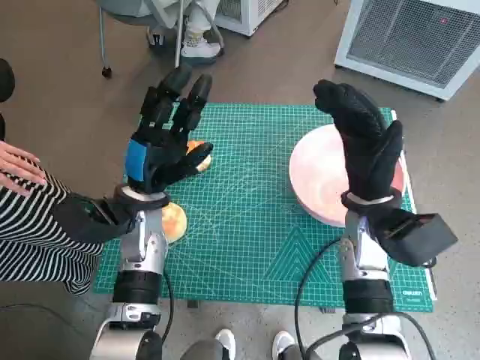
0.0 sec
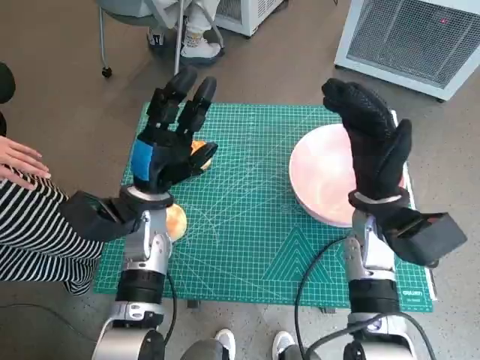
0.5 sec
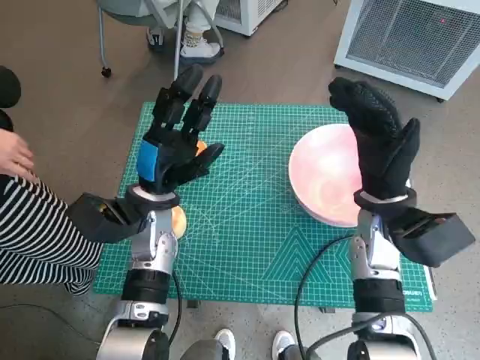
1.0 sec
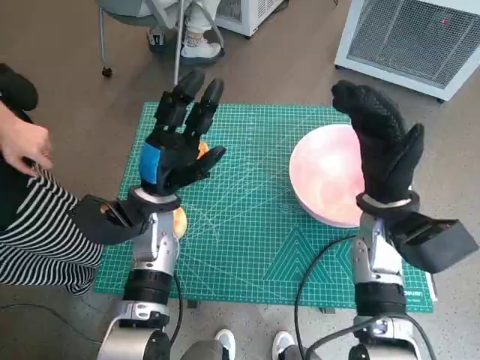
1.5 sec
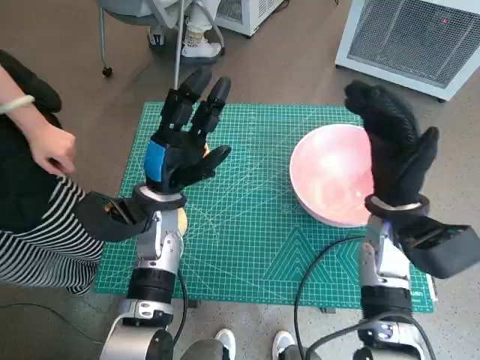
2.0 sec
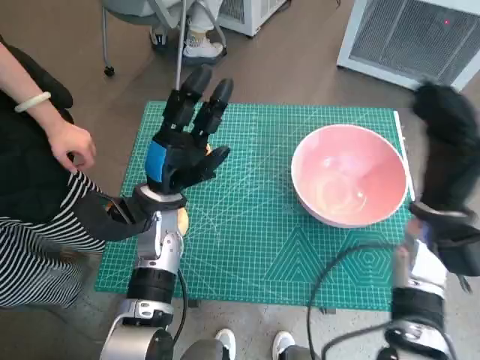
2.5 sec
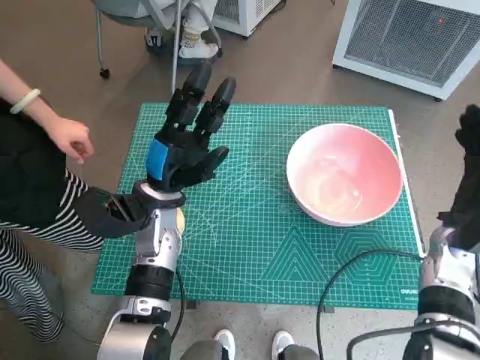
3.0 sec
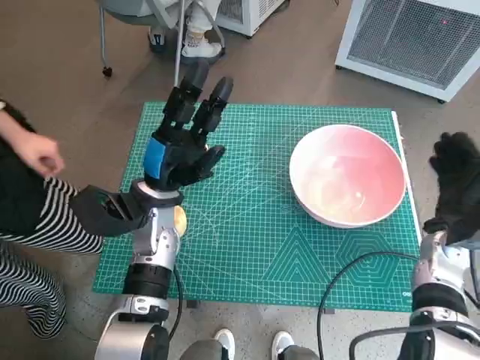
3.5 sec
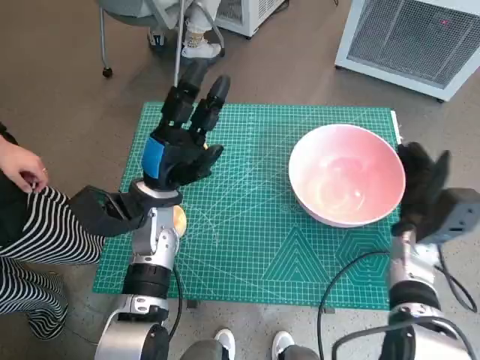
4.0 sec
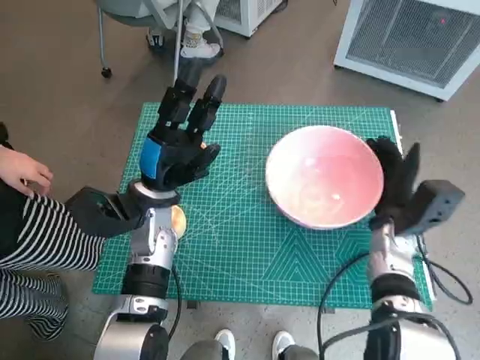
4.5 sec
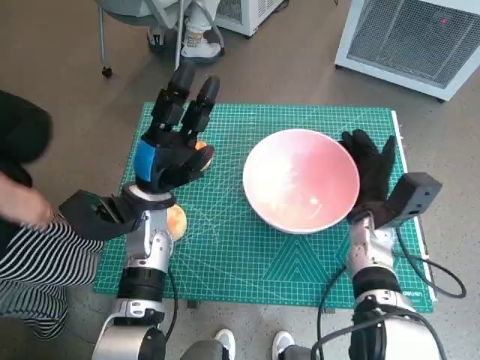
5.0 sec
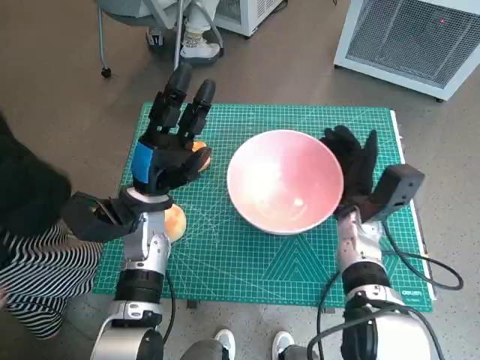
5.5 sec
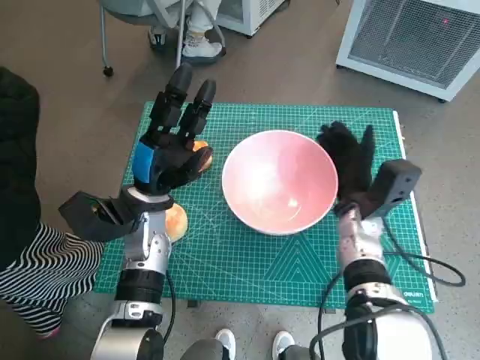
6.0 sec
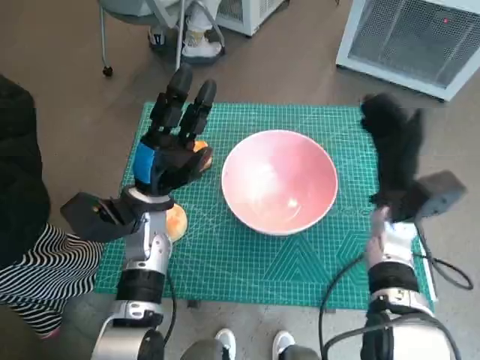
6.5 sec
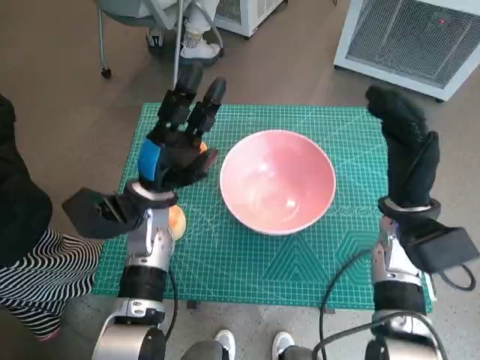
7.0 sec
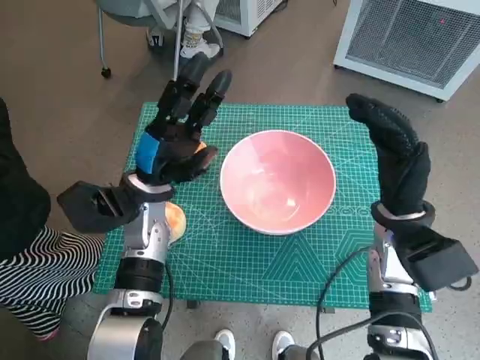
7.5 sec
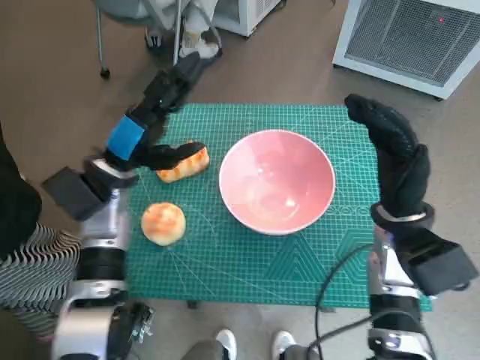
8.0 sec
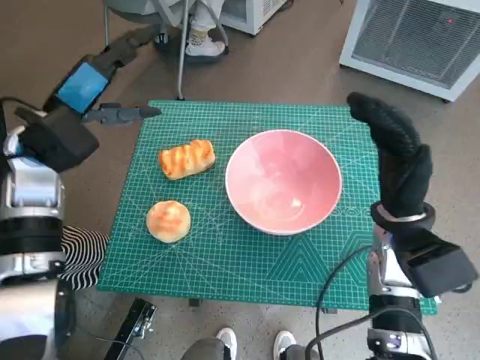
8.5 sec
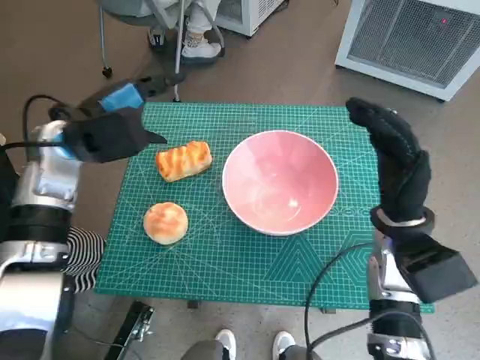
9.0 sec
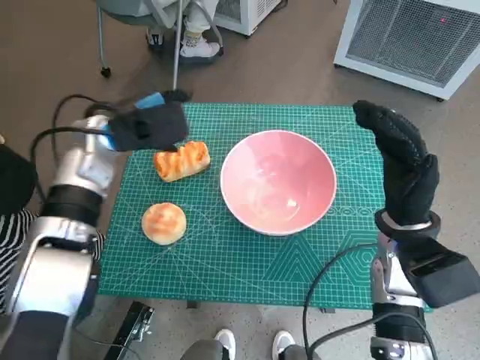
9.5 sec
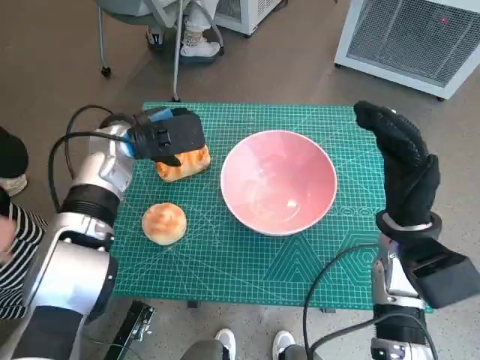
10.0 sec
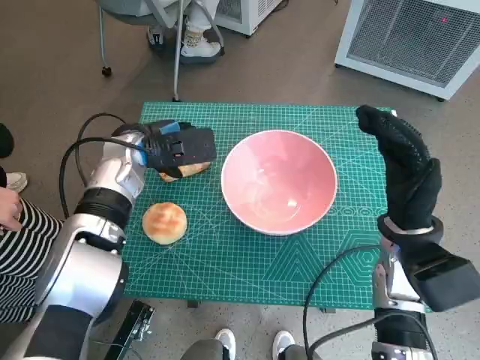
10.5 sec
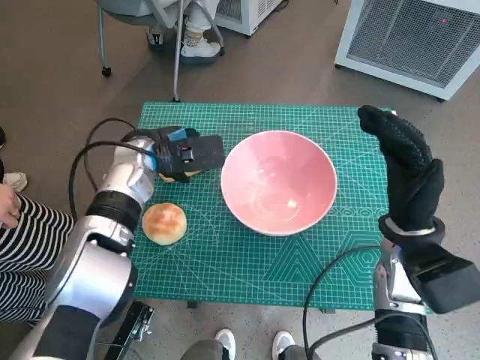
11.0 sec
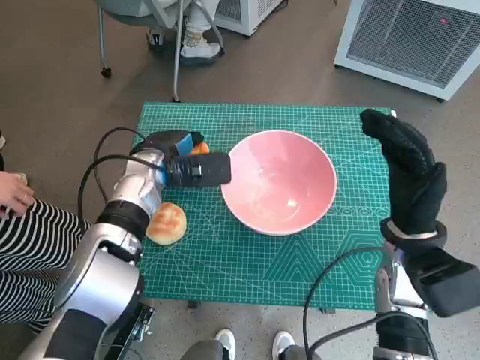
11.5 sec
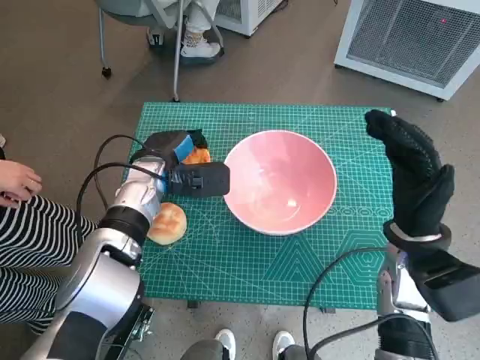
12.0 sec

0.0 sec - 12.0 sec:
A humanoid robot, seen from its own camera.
Task of the whole recording: Push the bowl into the center of the table and put the bread into the bowl.
Step, 0.0 sec - 6.0 sec: Move the pink bowl to the center of table with right hand.
Step, 6.5 sec - 11.5 sec: Grasp the long bread with left hand.
2.0 sec - 4.0 sec: The right hand travels downward and to the right by approximately 10 cm.
4.0 sec - 6.0 sec: The right hand is displaced to the left by some 10 cm.
6.0 sec - 8.0 sec: The left hand ends up about 5 cm from where it was. The right hand travels upward by approximately 5 cm.
8.0 sec - 10.0 sec: The left hand shifts roughly 5 cm forward, and moves some 10 cm upward and comes back.
10.0 sec - 12.0 sec: The left hand moves downward, roughly 5 cm.

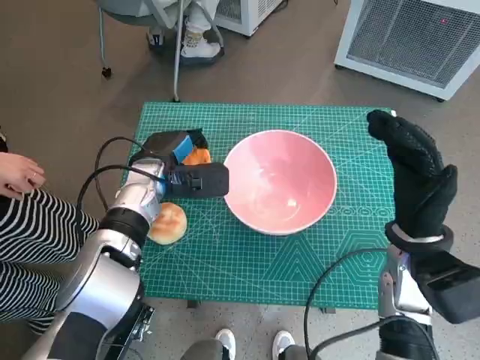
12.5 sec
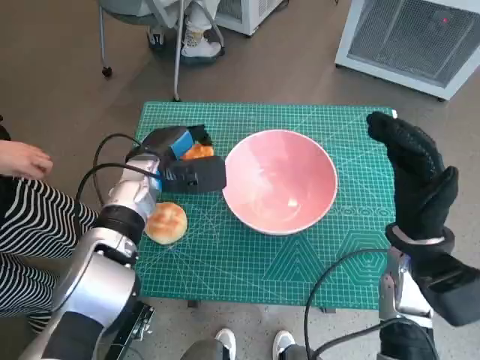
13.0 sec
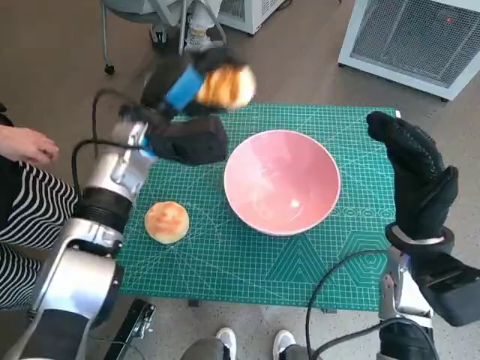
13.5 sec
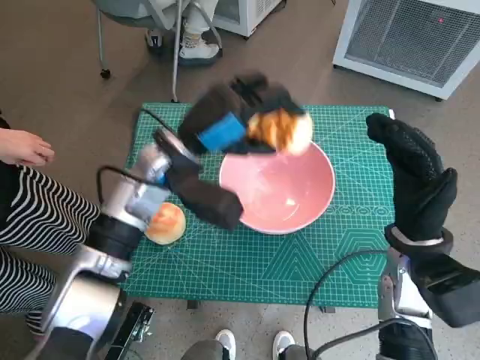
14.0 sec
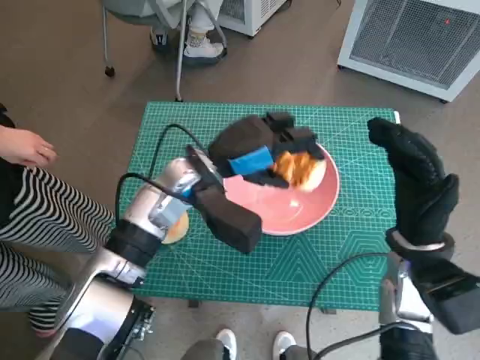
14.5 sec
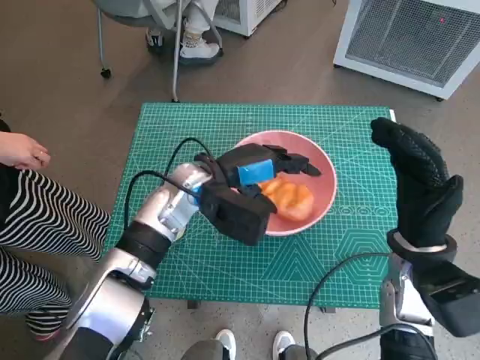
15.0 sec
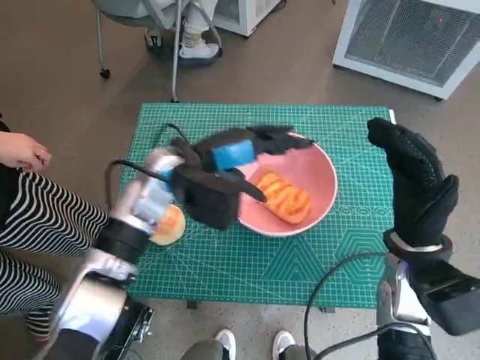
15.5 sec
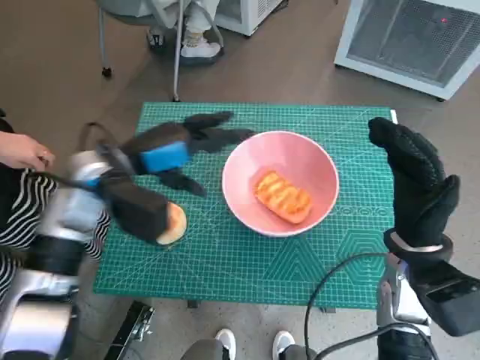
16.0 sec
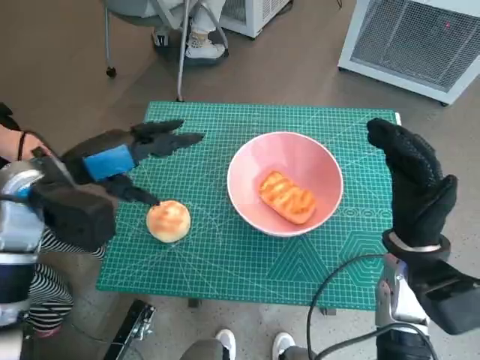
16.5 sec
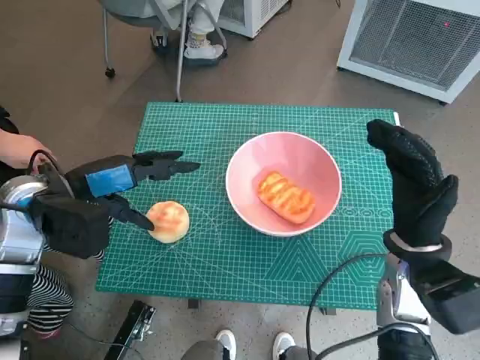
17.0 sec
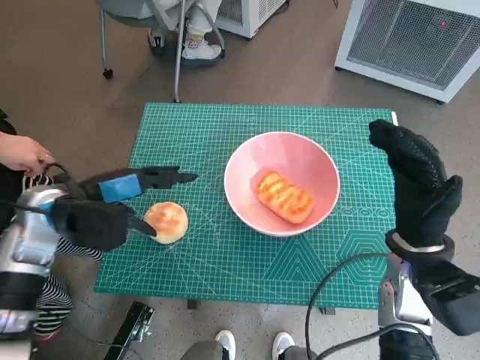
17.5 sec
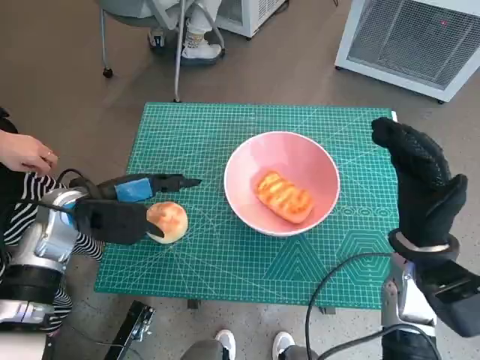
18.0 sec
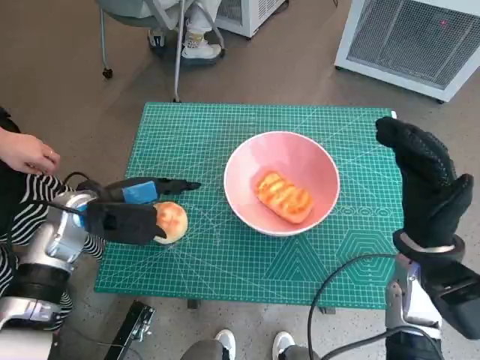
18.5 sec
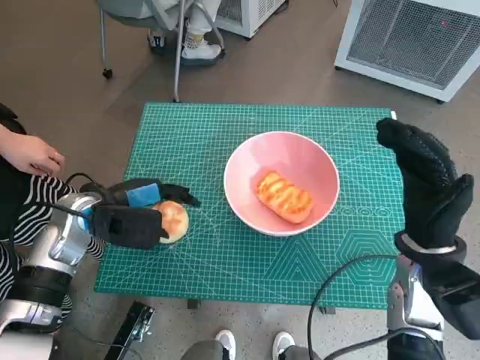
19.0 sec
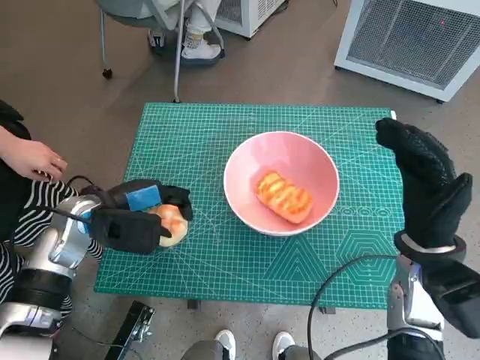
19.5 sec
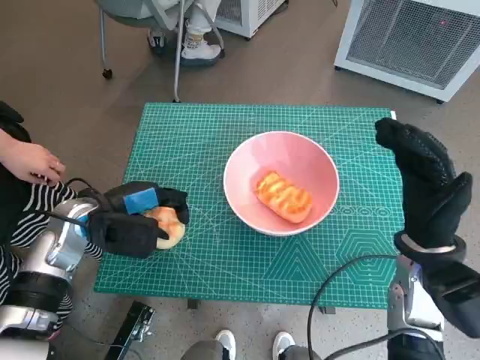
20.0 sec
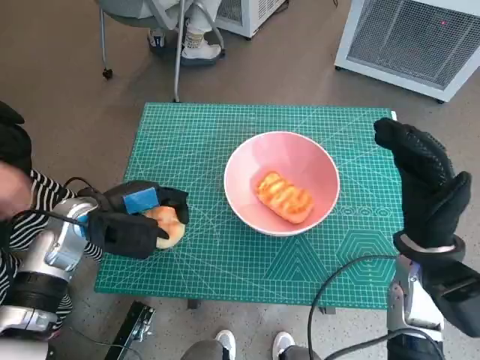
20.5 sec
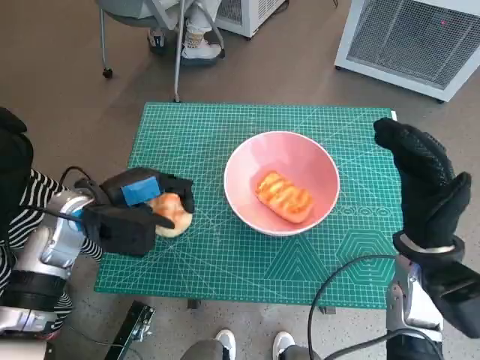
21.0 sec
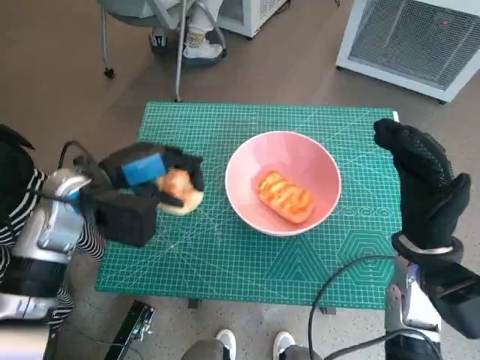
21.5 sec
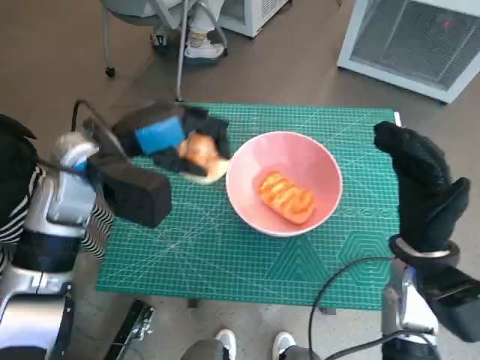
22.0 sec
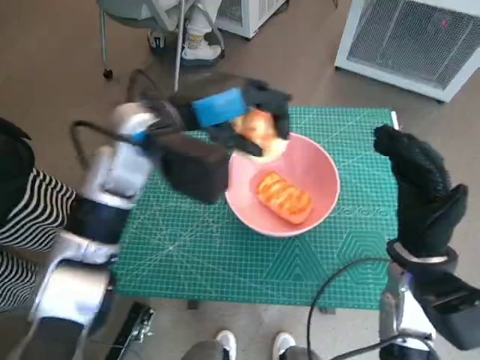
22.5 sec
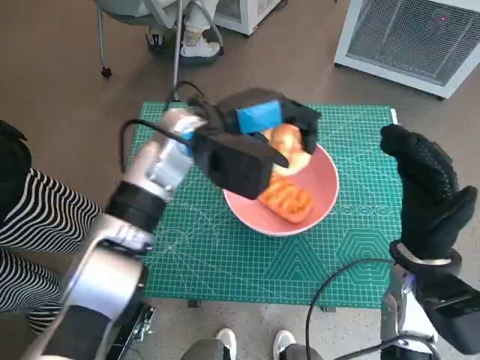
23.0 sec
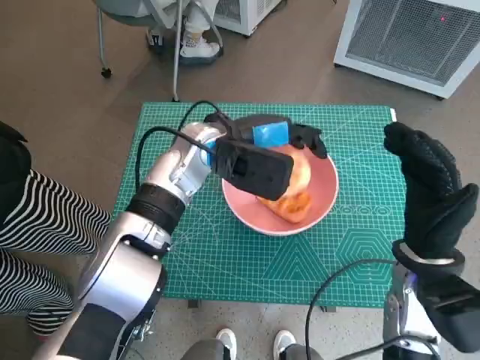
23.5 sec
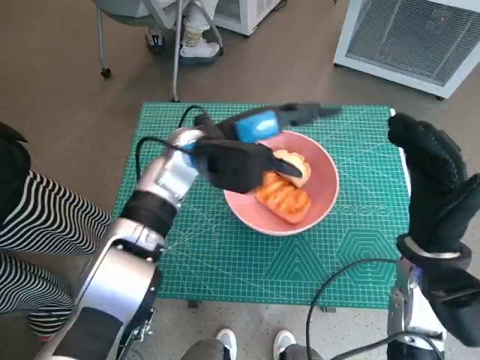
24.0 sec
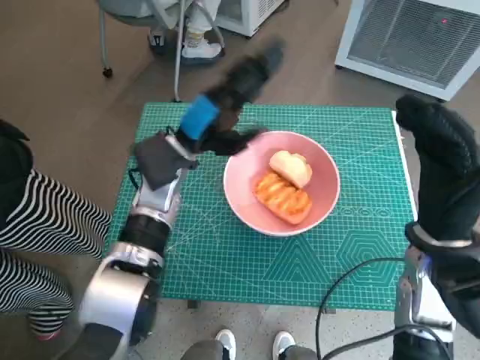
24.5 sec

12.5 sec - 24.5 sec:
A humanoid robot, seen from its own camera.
Task of the whole recording: Push the bowl into the center of the table and put the bread into the bowl.
Step, 12.5 sec - 15.5 sec: Place the long bread in pink bowl with left hand.
Step, 16.0 sec - 19.0 sec: Grasp the round bread with left hand.
Step, 19.5 sec - 24.0 sec: Place the round bread in pink bowl with left hand.
12.5 sec - 14.5 sec: The left hand is displaced to the right and upward by some 10 cm.
14.5 sec - 16.5 sec: The left hand heads to the left, covering approximately 15 cm.
16.5 sec - 18.5 sec: The left hand travels downward by some 10 cm.
18.5 sec - 20.5 sec: The hands stay close to where they were, moving slightly.
20.5 sec - 22.5 sec: The left hand moves upward and to the right, some 20 cm.
22.5 sec - 24.5 sec: The left hand heads downward, covering roughly 10 cm.

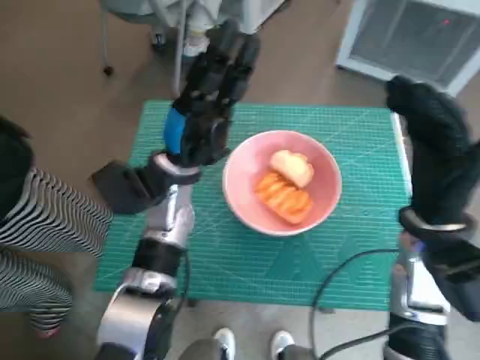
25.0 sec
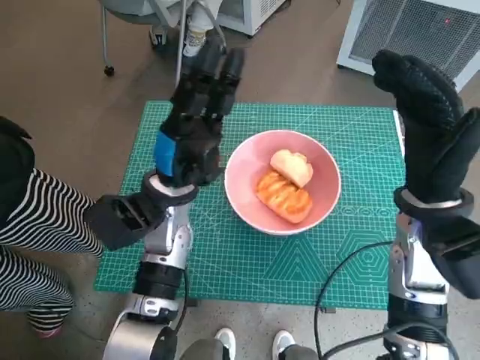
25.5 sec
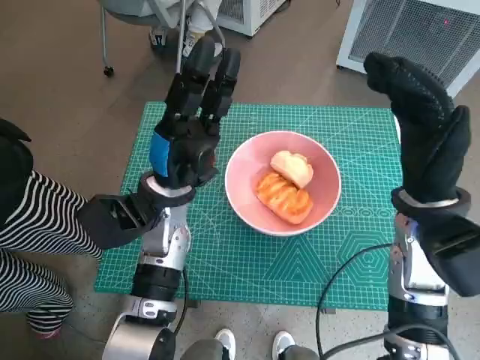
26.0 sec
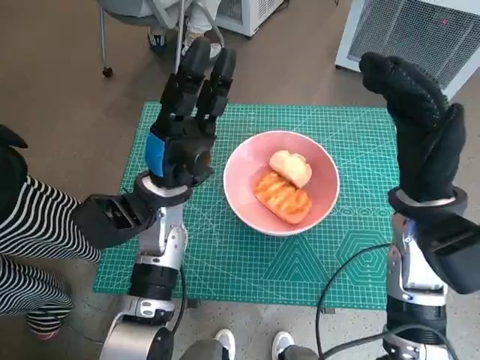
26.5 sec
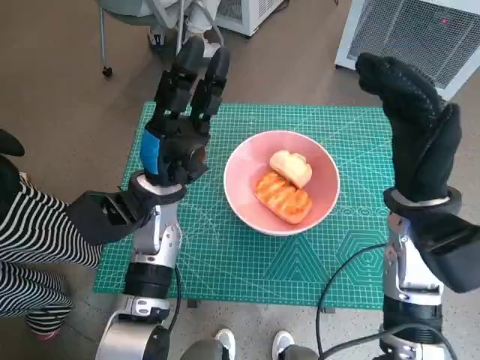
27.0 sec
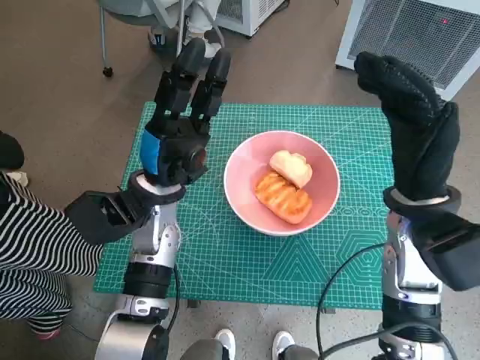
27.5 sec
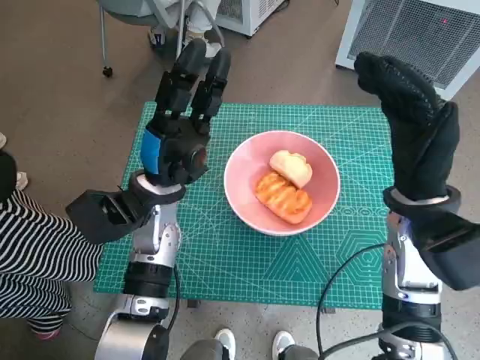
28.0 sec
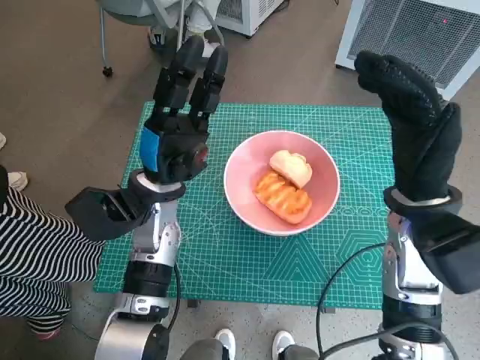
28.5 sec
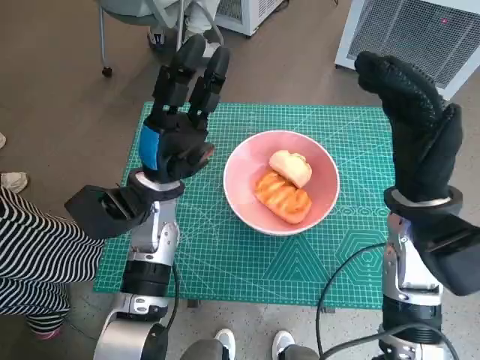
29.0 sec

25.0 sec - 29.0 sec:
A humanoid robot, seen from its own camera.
Task of the whole recording: Push the bowl into the center of the table and put the bread into the bowl.
27.0 sec - 29.0 sec: Neither hand changes place.
